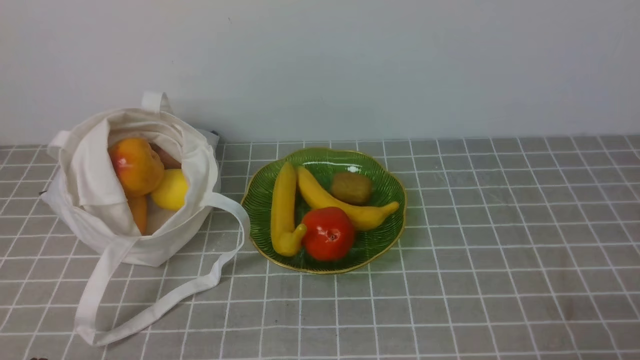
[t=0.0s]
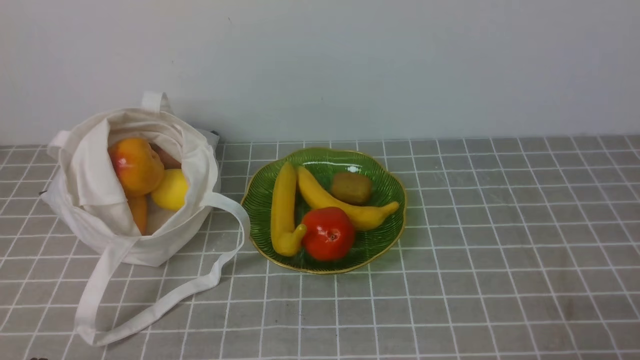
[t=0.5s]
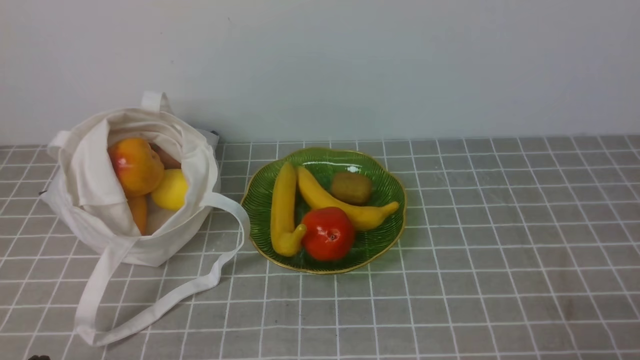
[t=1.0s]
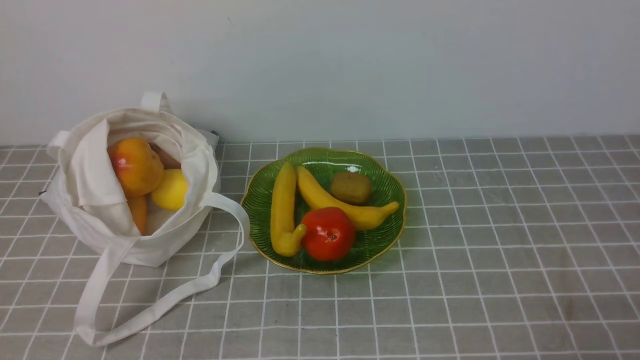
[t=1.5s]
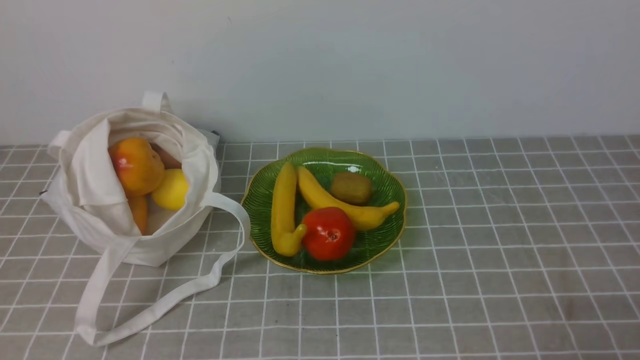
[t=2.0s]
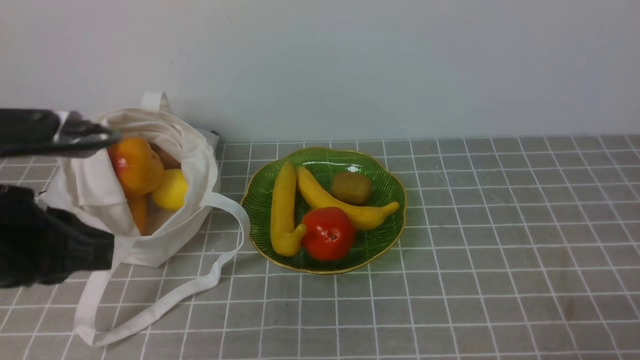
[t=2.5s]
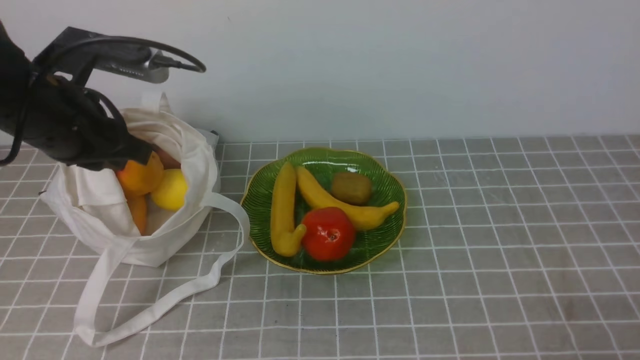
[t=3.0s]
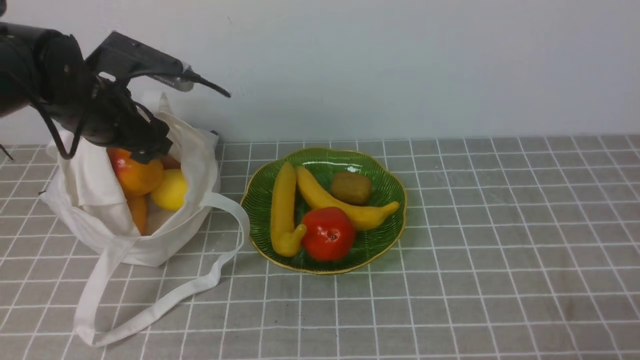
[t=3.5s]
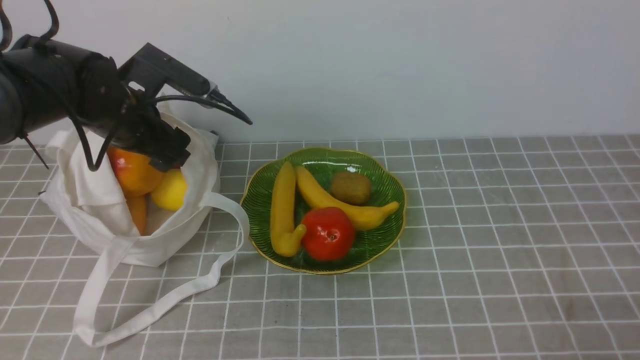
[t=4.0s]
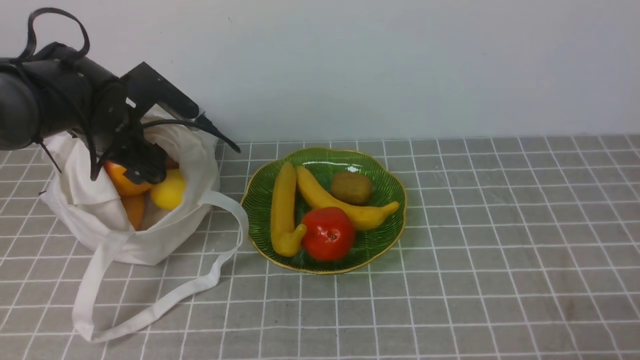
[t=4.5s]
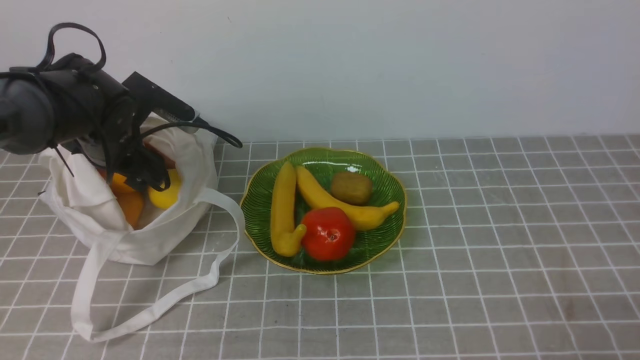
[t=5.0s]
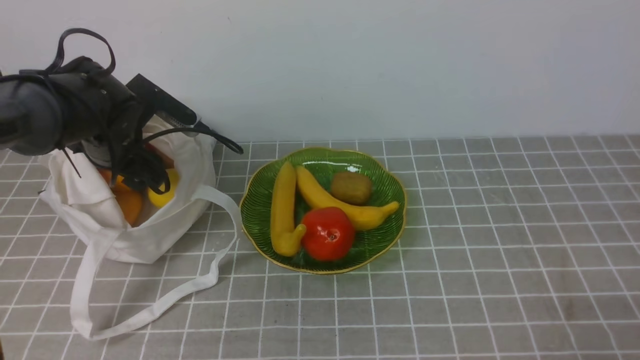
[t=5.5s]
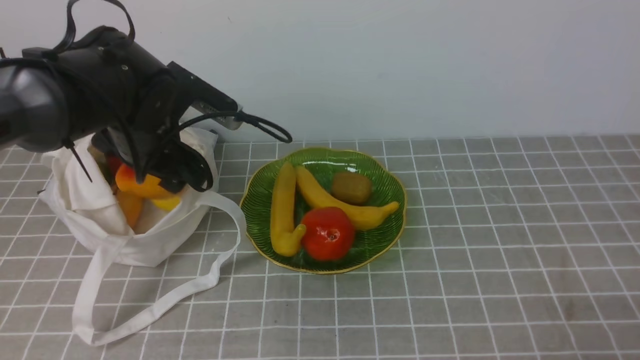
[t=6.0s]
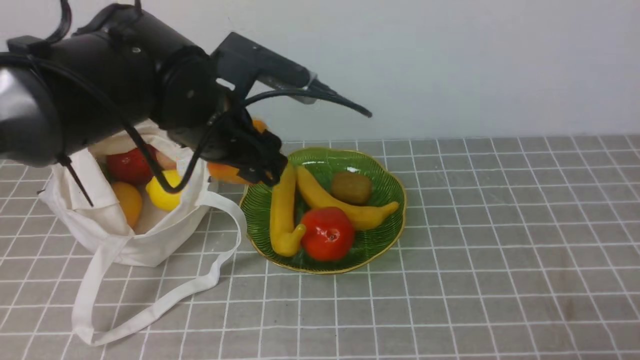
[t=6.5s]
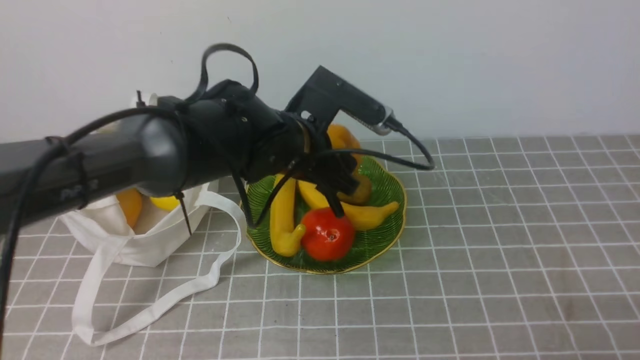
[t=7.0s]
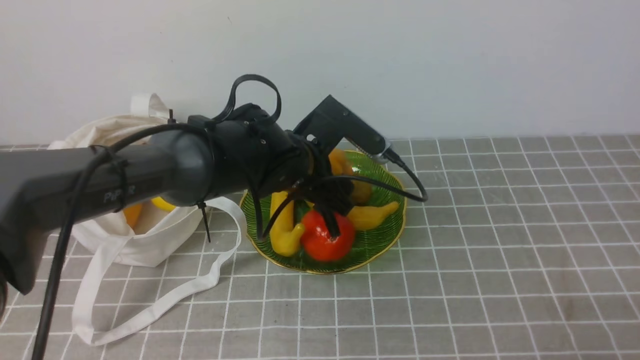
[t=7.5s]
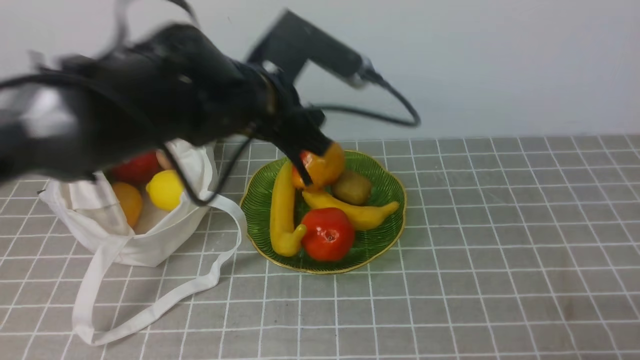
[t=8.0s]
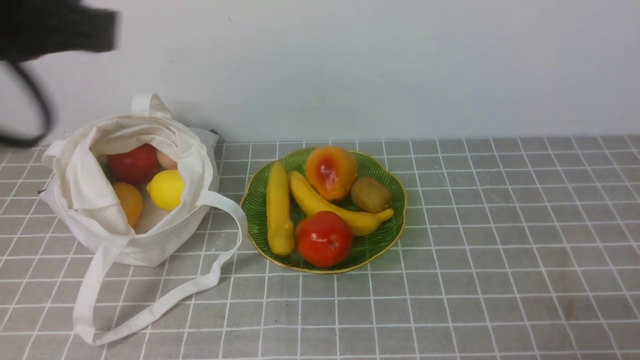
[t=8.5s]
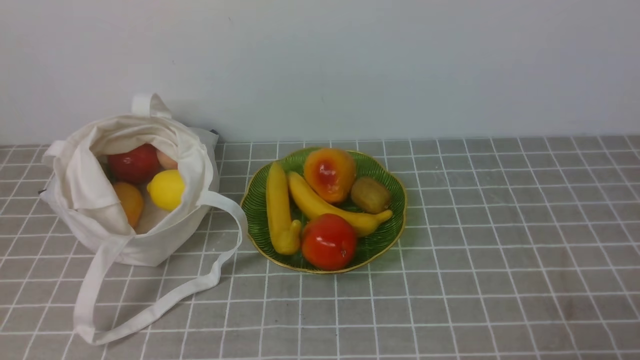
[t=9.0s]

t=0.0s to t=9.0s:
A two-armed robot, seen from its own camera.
Step, t=0.0s to t=5.5s: use the left arm to grab a pear from the bag.
Step, t=6.5s to t=8.0s: use the left arm to put the pear into the empty plate on the right.
t=2.0s to t=4.5s: The left gripper shifts approximately 35 cm forward, and opens up.
t=4.5s to t=7.0s: The left gripper travels to the right by about 20 cm.
t=7.0s to t=9.0s: The left gripper heads backward and to the left, covering roughly 40 cm, and closes up.

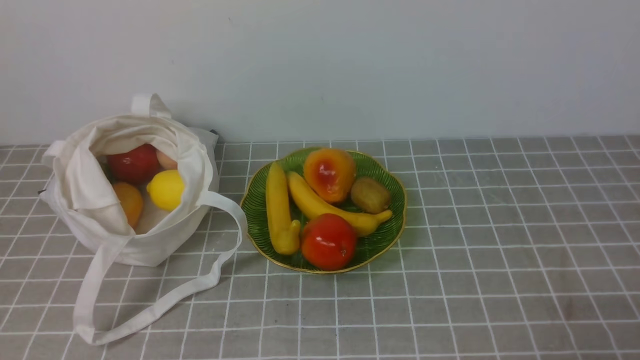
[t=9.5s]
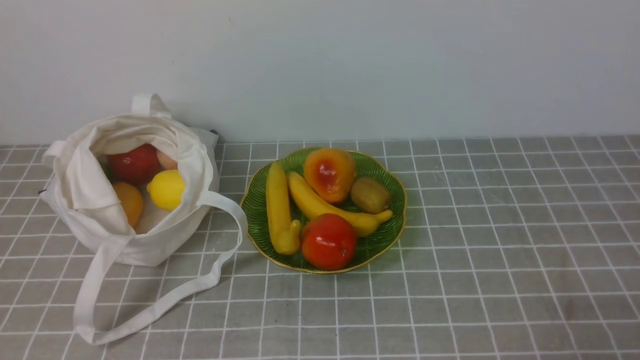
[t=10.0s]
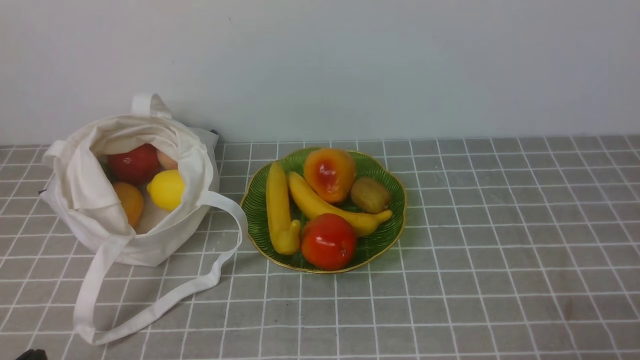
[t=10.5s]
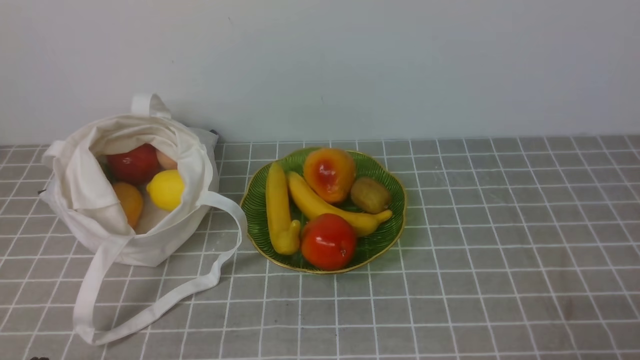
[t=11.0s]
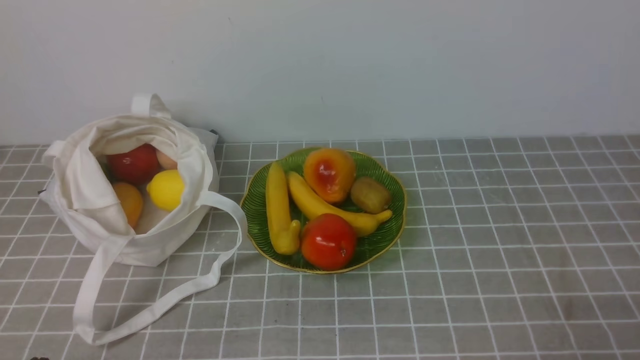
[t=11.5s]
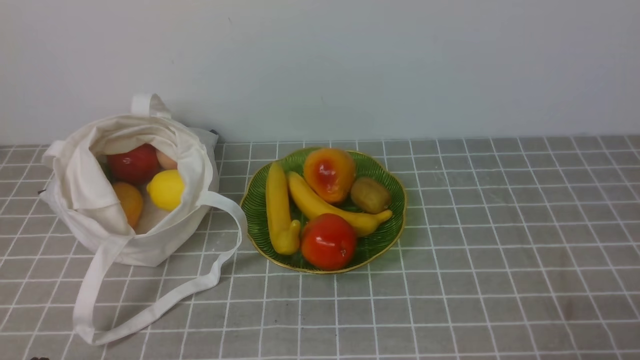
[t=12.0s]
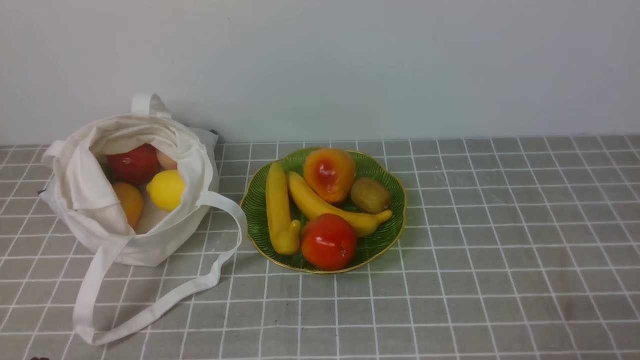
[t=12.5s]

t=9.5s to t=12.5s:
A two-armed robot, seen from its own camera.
t=11.0s to t=12.5s: Both grippers stay put.

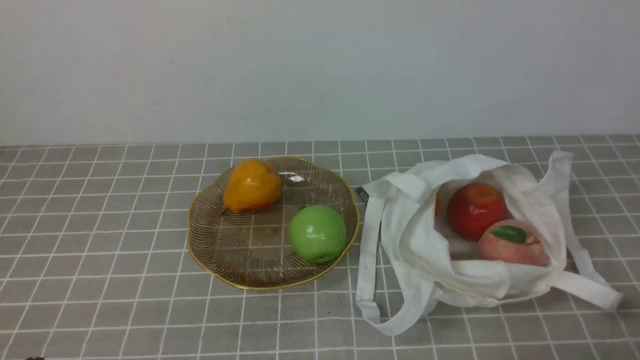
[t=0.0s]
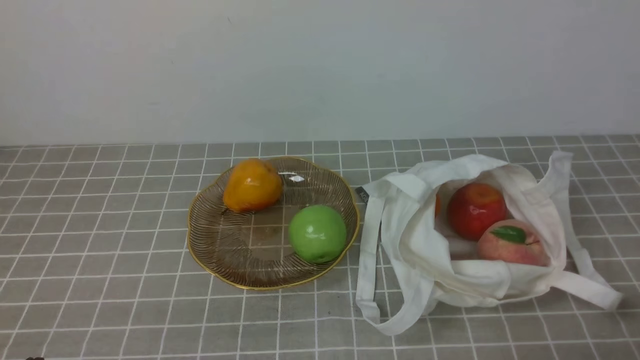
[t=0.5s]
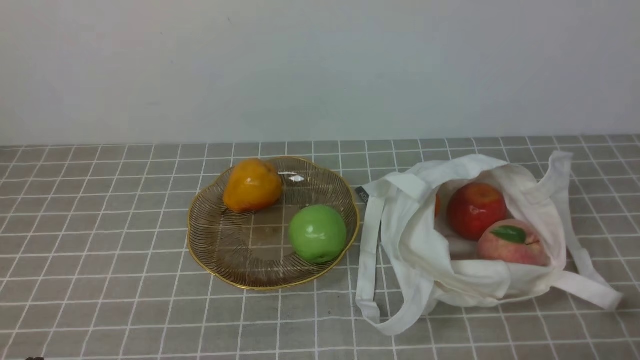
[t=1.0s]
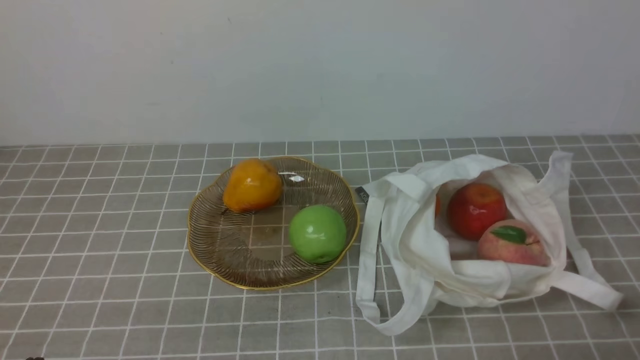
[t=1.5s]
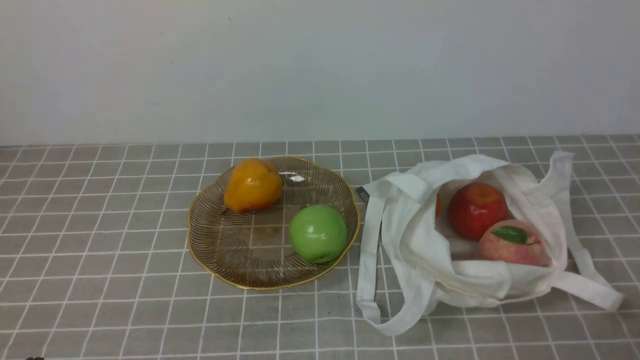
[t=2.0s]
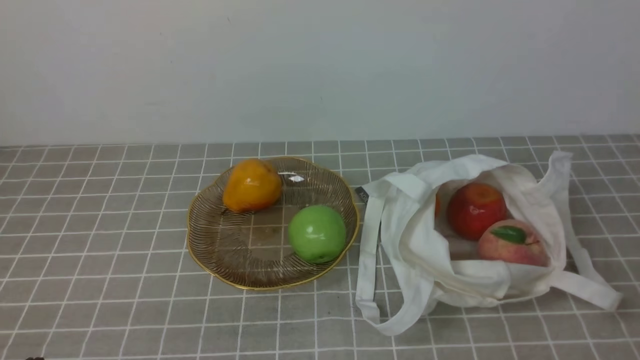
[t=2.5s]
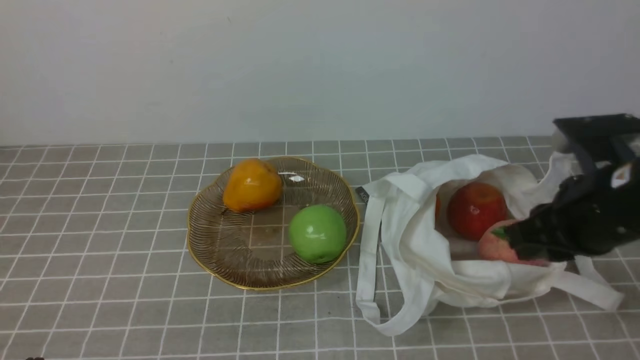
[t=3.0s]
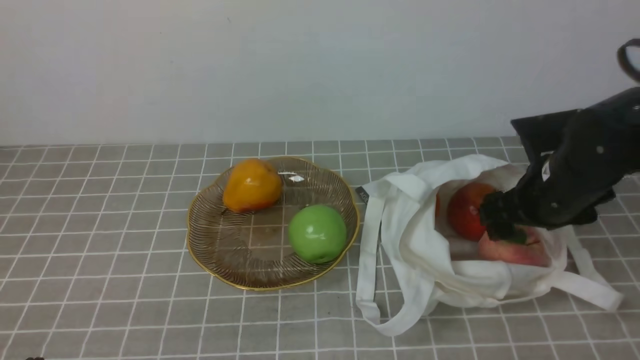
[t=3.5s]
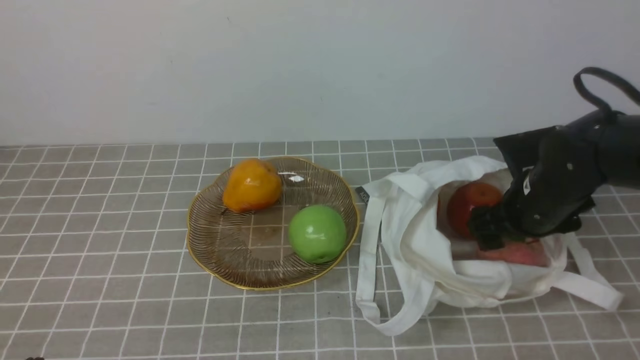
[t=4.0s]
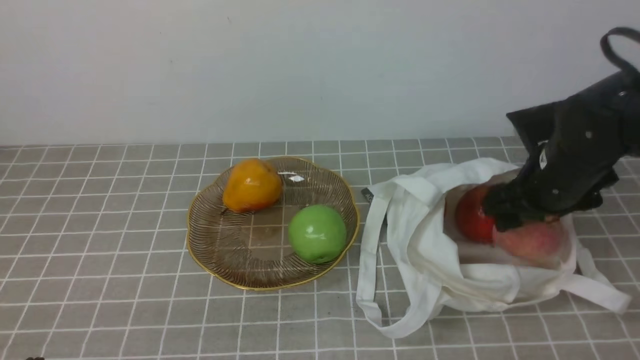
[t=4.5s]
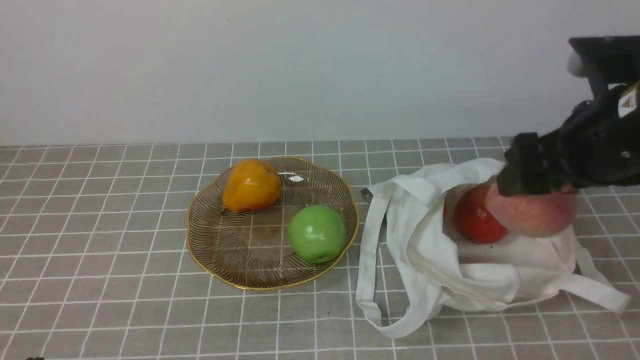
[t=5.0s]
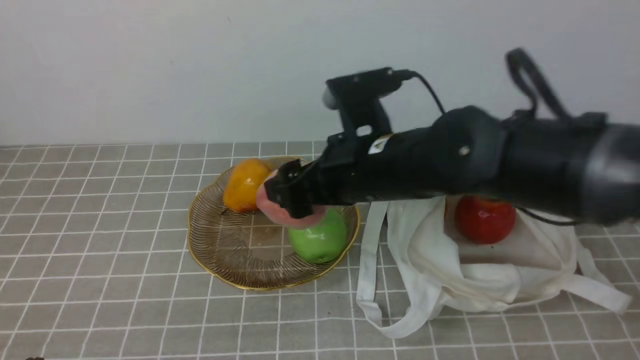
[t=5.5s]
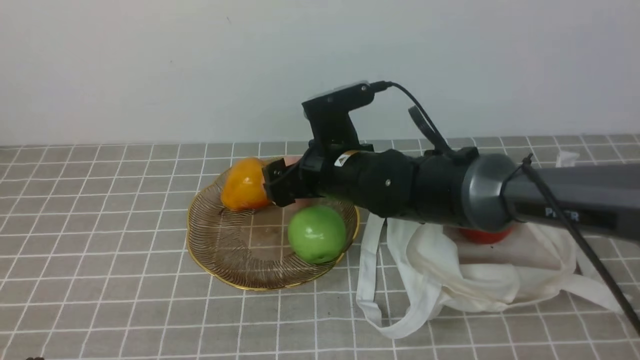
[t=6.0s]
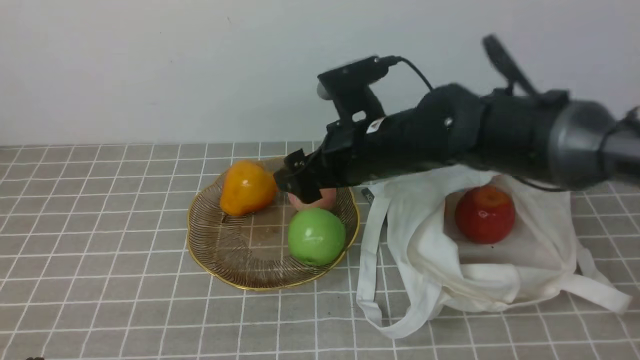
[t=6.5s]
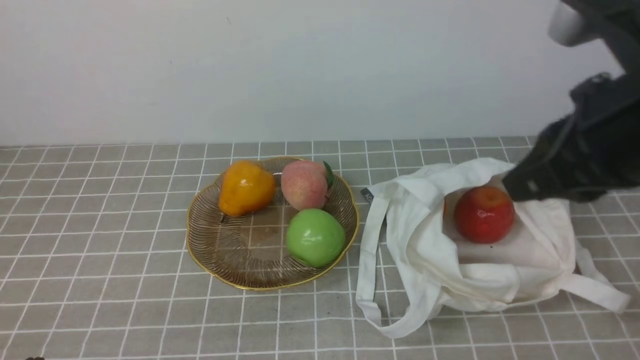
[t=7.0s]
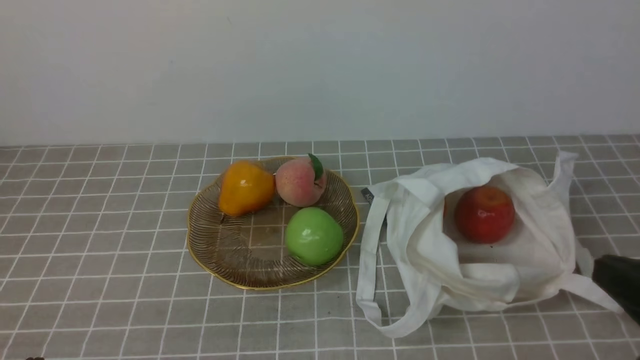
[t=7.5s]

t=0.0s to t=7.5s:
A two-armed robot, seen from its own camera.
Step, t=0.0s to t=4.0s: use the right arm to grab a peach from the bag.
Step, t=4.5s to t=6.0s: use the right arm to put the peach into the empty plate on the left.
t=2.0s to t=4.0s: The right gripper moves forward, roughly 30 cm, and opens.
t=4.0s to t=5.5s: The right gripper moves to the left and upward, roughly 20 cm.
t=5.5s to t=7.5s: The right gripper goes some 30 cm backward and to the right, and closes its fingers.
